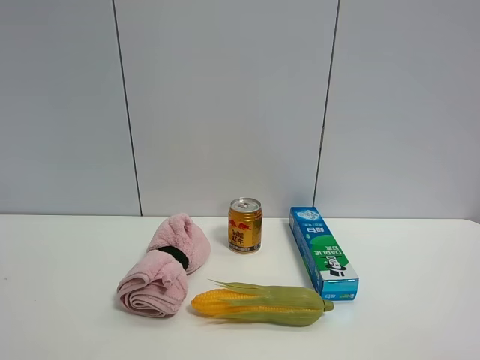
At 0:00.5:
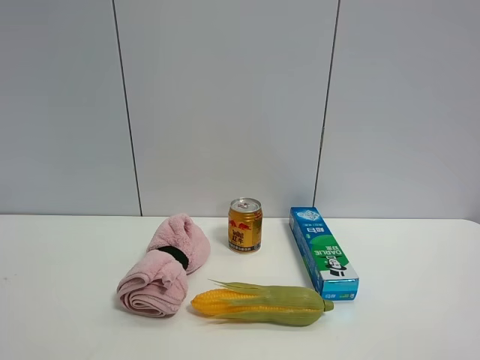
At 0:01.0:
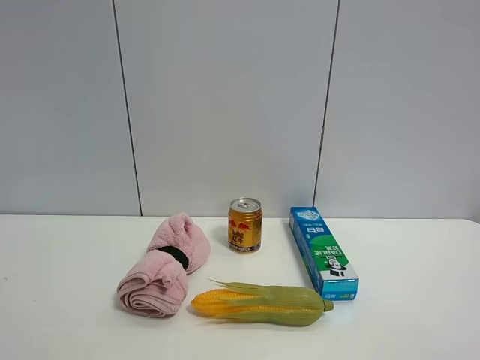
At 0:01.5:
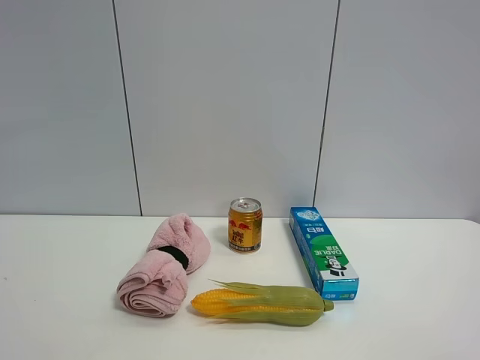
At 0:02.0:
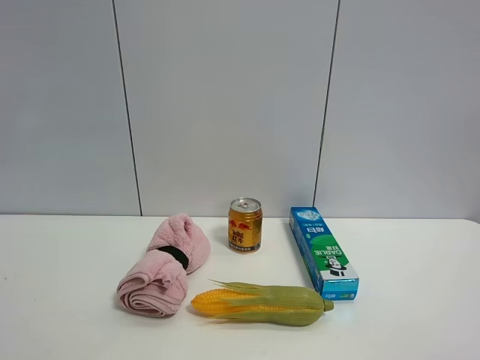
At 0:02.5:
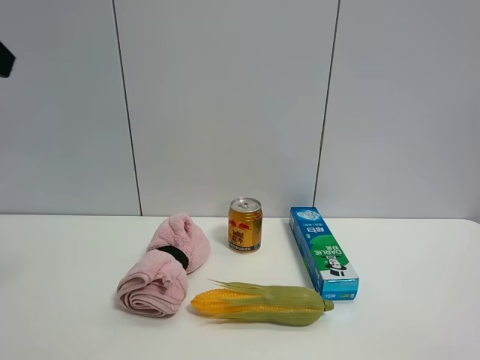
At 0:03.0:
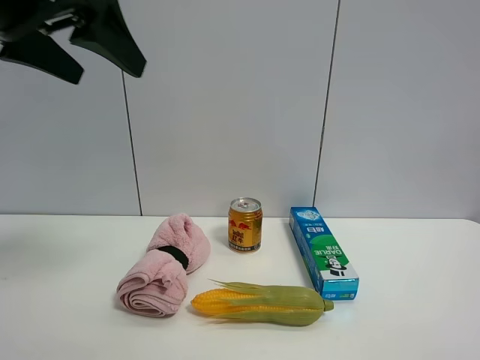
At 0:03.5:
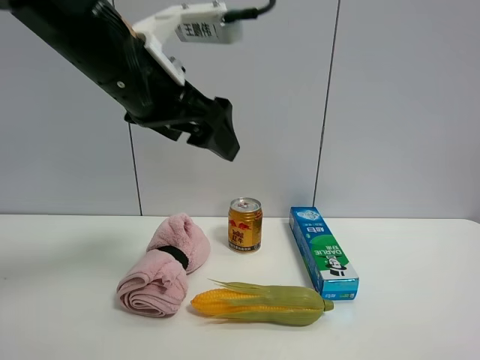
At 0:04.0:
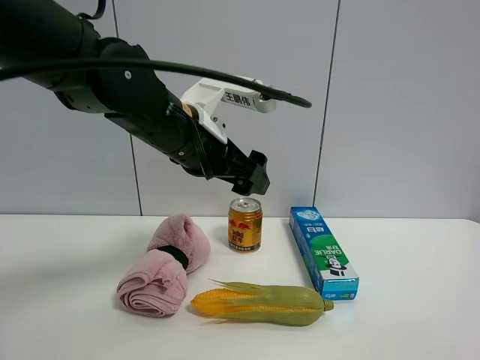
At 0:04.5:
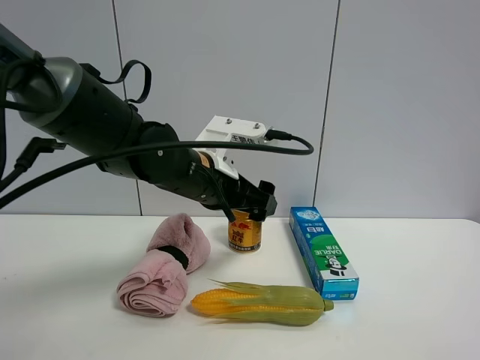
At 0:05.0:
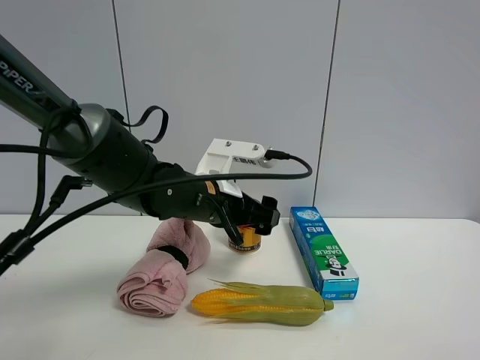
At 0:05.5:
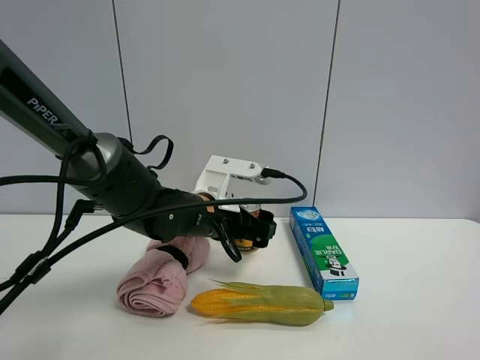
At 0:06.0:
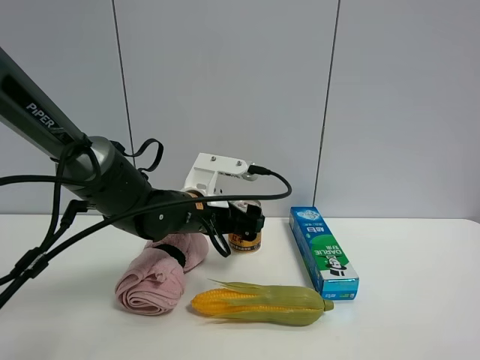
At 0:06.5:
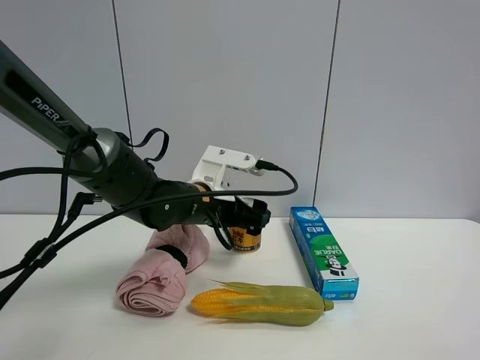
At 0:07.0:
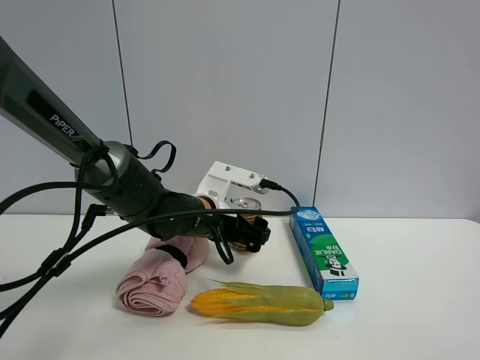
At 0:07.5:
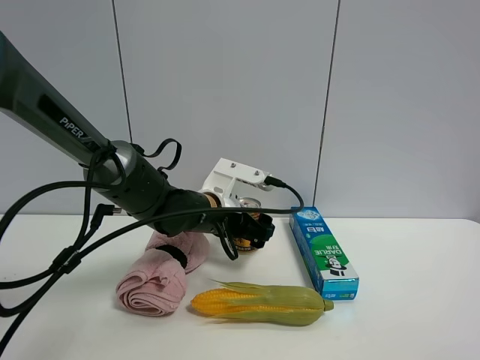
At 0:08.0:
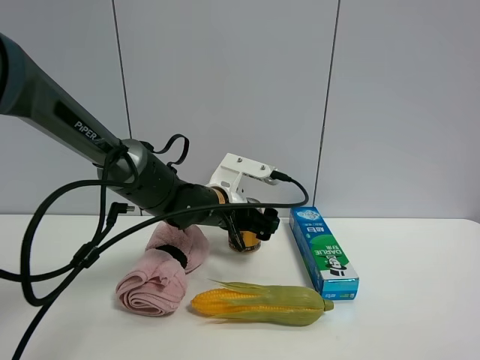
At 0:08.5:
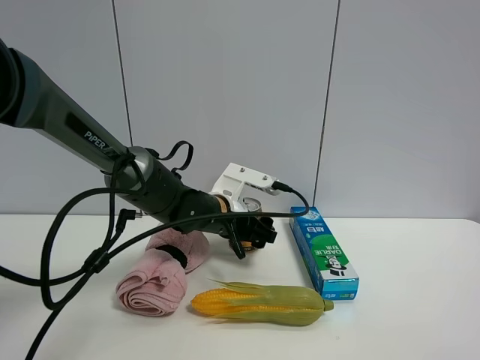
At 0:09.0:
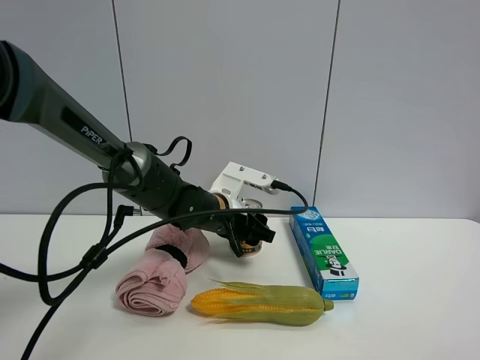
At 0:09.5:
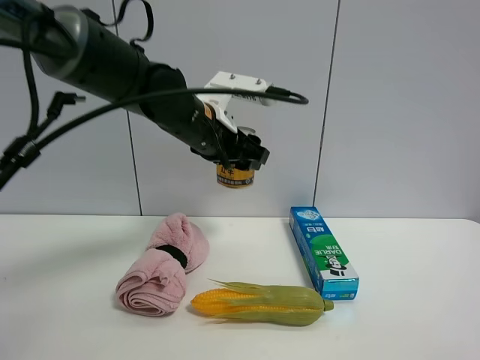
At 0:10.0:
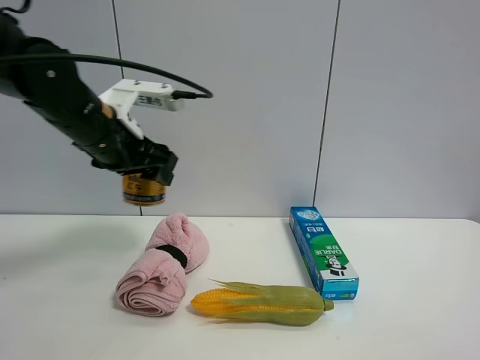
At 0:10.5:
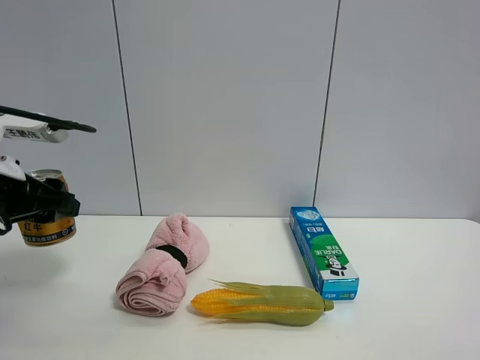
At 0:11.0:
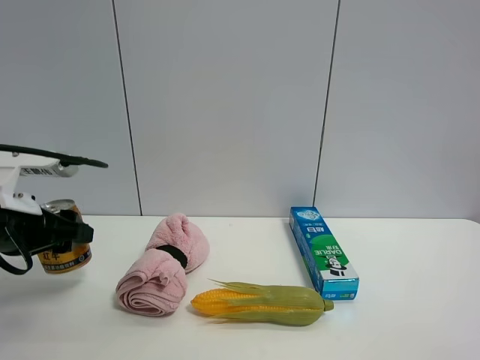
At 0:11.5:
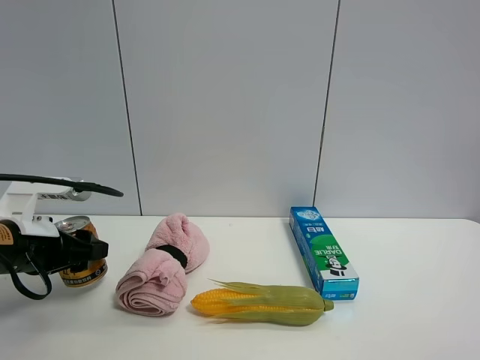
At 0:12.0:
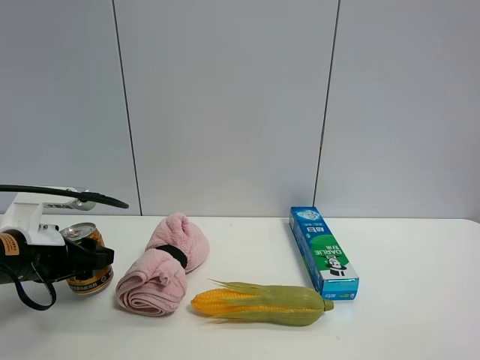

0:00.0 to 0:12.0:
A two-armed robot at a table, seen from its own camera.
Task of the whole recording: the gripper move the object.
Step, 0:00.0 to 0:08.5: Grasp the red bull with the left gripper.
0:02.0 to 0:04.0: The left gripper shifts roughly 35 cm to the right, forward and downward.
0:04.0 to 0:06.0: The left gripper travels downward by about 10 cm.
0:06.0 to 0:08.0: There are only small adjustments of the grippers.
0:08.0 to 0:10.0: The left gripper goes about 20 cm to the left, upward and backward, and closes its fingers.
0:10.0 to 0:12.0: The left gripper moves downward, to the left and backward, some 15 cm.

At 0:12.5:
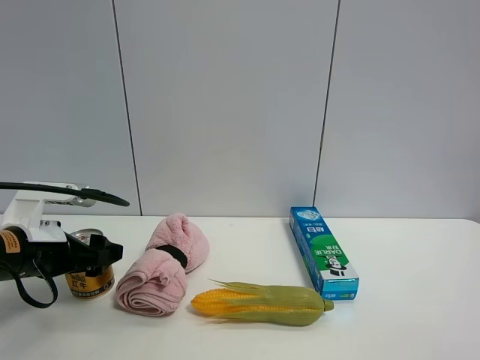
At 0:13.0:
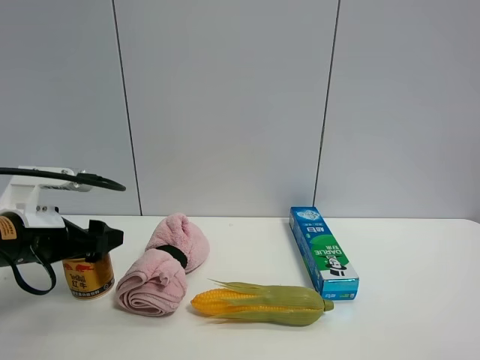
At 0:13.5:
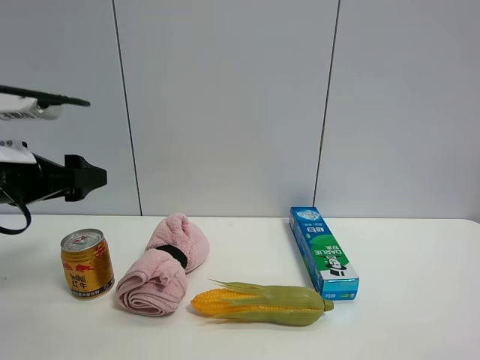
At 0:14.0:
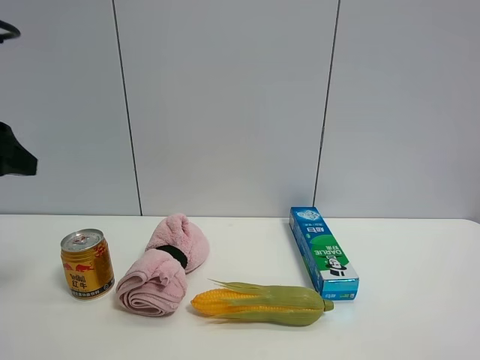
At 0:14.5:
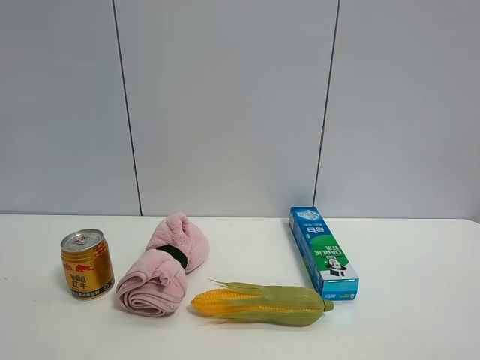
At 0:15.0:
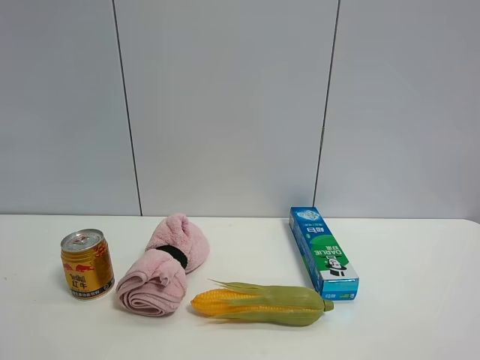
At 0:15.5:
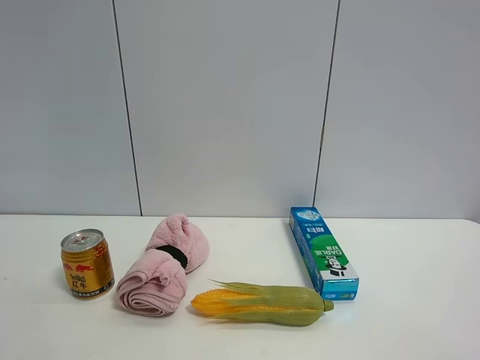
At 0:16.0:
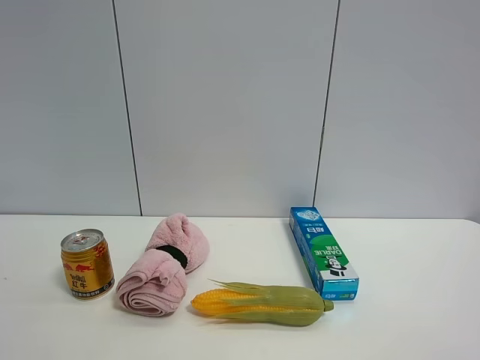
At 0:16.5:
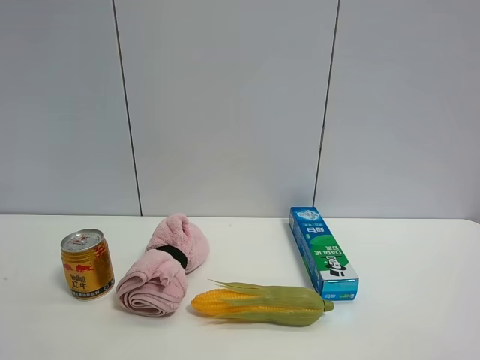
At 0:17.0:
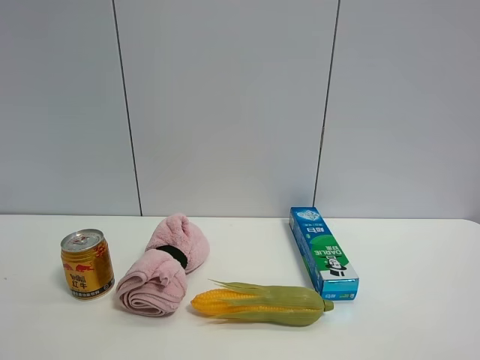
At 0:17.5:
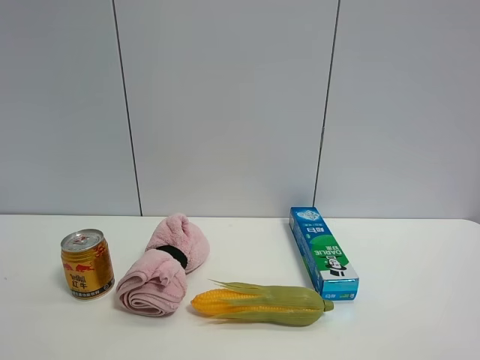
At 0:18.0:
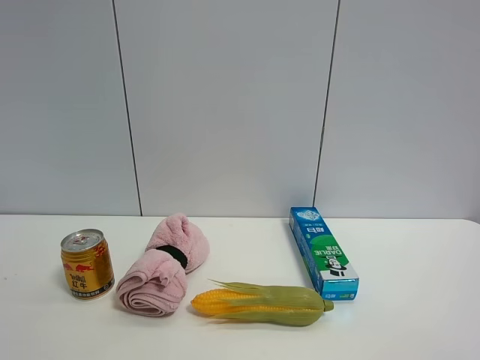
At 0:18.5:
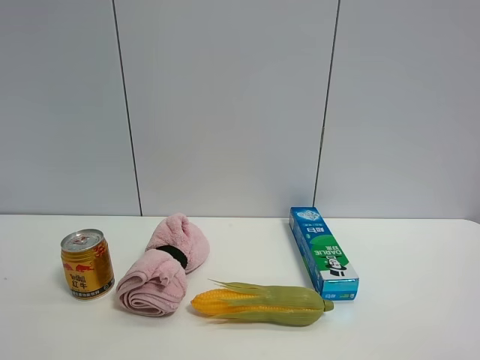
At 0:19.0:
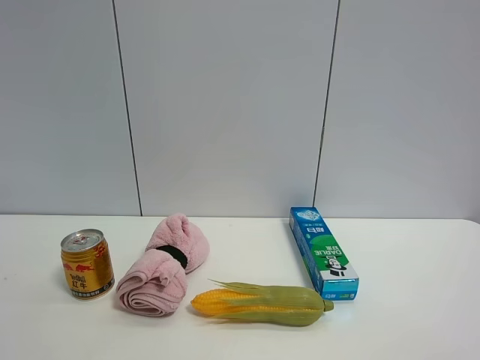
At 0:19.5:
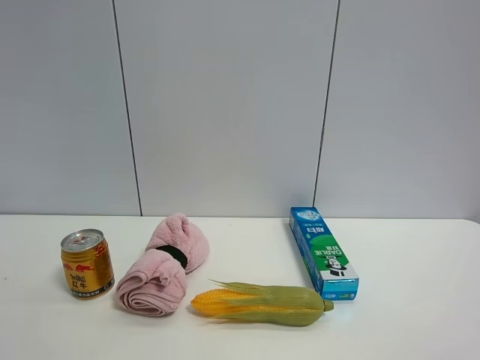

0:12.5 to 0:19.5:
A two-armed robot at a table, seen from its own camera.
Task of the whole recording: the gripper move the object.
0:12.5 to 0:14.5: The left gripper goes roughly 30 cm upward and backward.

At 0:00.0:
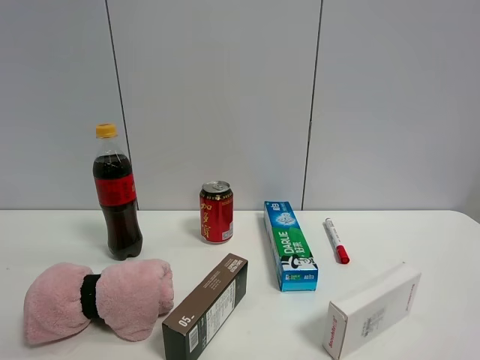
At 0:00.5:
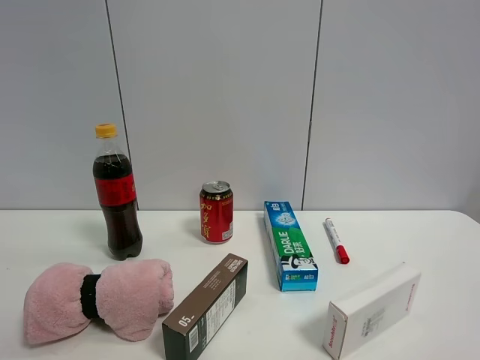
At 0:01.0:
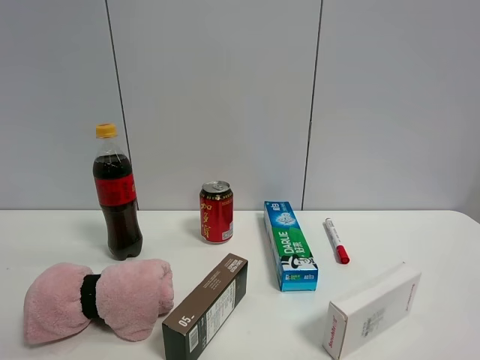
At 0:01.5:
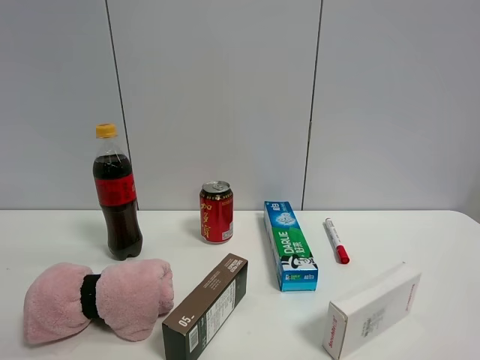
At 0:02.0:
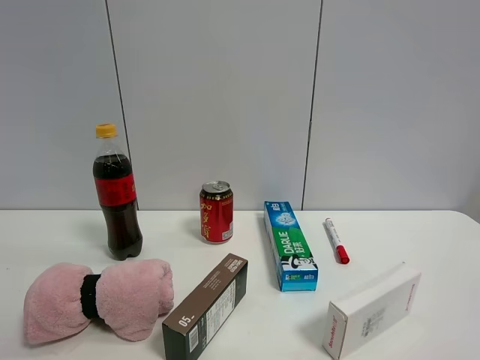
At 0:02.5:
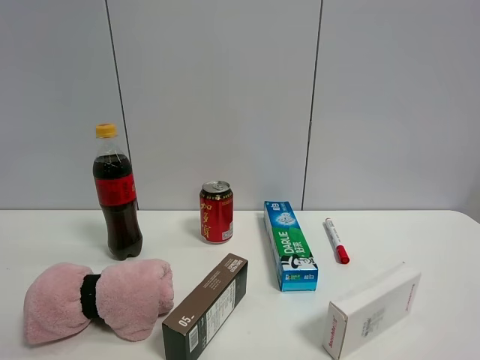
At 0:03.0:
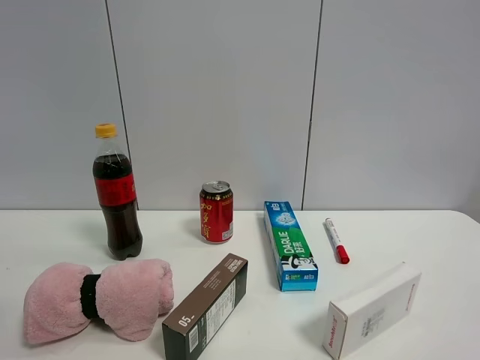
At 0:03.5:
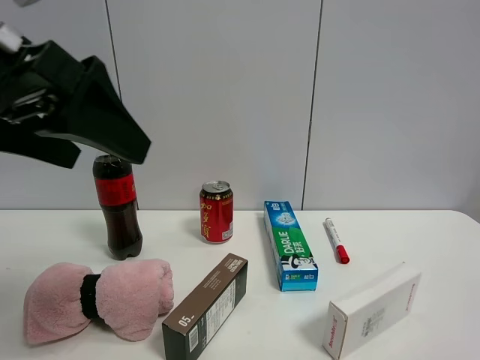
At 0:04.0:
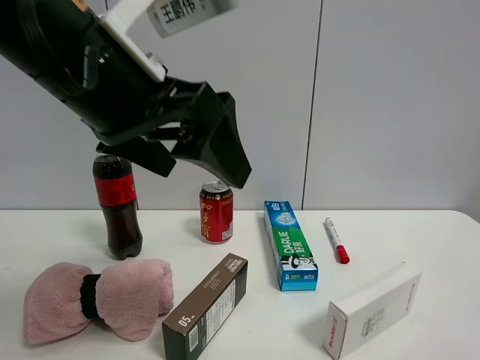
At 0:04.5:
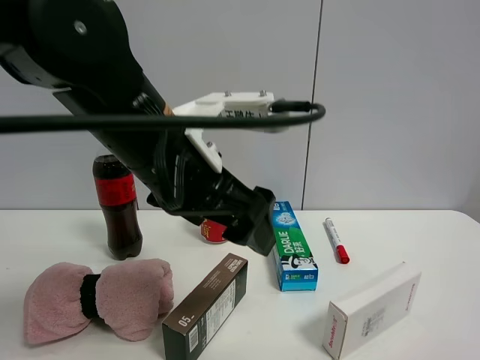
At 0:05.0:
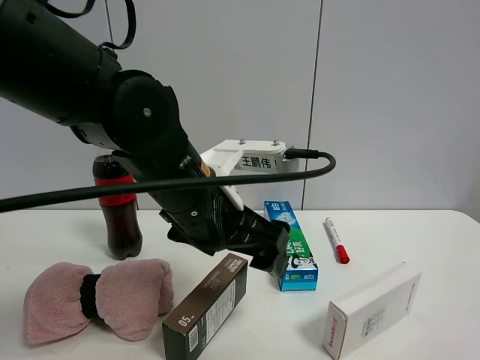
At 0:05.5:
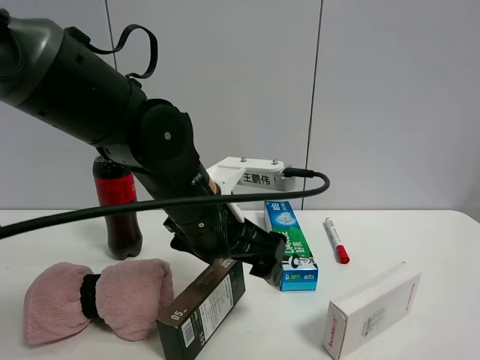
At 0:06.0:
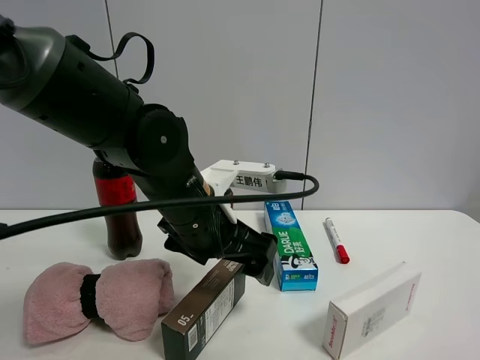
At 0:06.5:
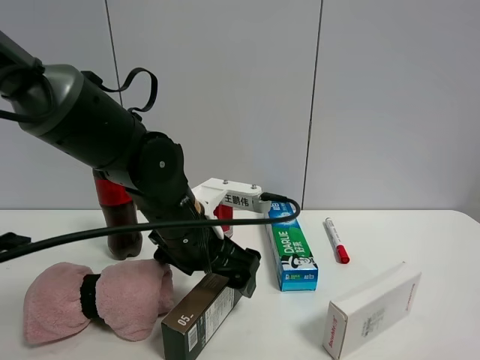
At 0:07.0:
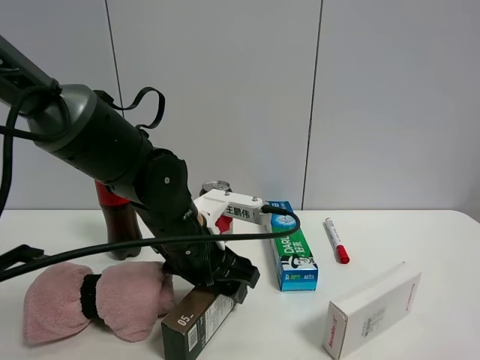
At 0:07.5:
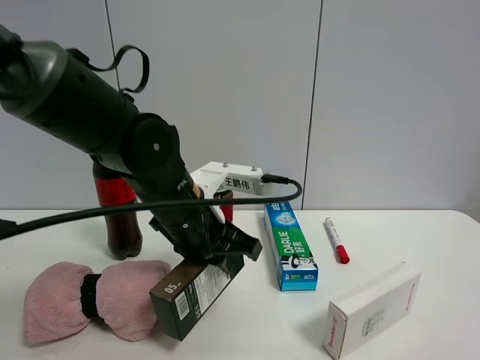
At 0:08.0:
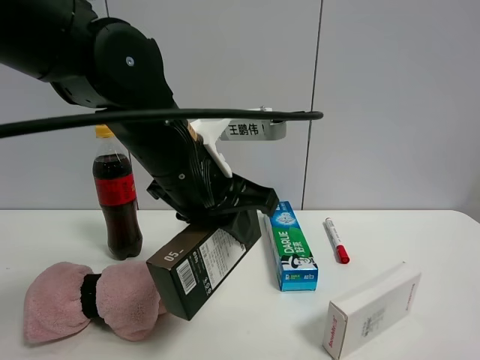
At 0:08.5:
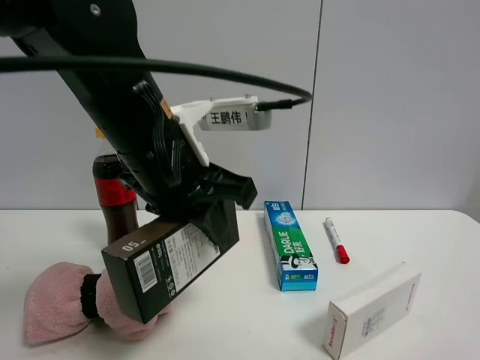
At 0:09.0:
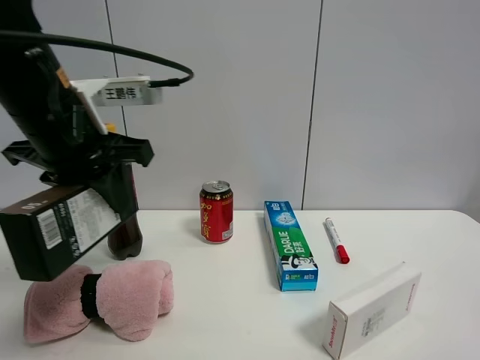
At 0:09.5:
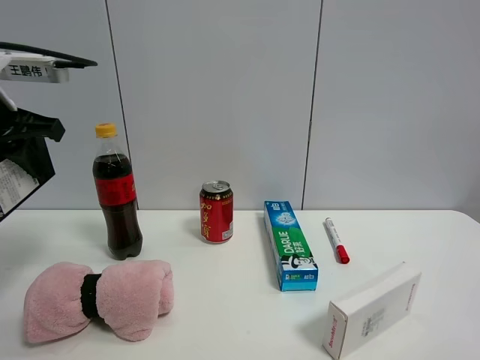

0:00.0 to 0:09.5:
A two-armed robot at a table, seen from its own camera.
Task of the whole recording: the gripper move the object.
Step, 0:00.0 to 0:07.0: Grasp the brown box with the left gripper.
0:02.0 to 0:04.0: The left gripper moves forward and to the right, some 30 cm.
0:04.0 to 0:05.5: The left gripper shifts some 15 cm downward and forward.
0:05.5 to 0:07.5: The left gripper closes its fingers.
0:07.5 to 0:09.5: The left gripper moves to the left and upward, about 25 cm.
